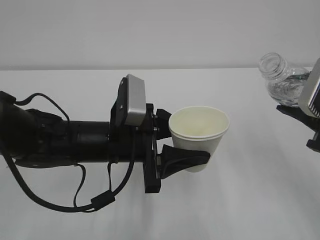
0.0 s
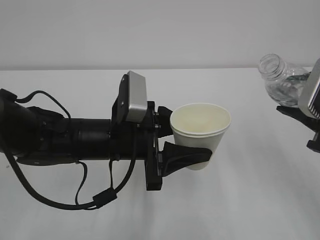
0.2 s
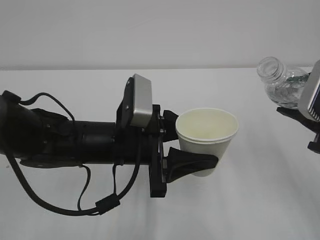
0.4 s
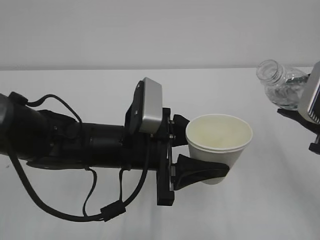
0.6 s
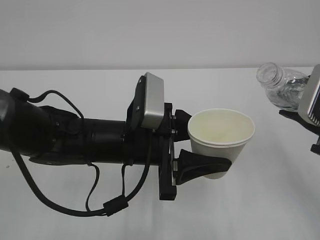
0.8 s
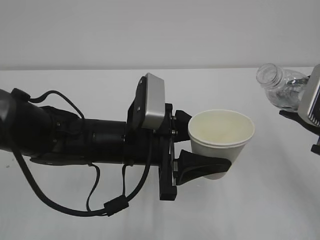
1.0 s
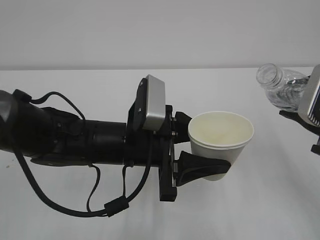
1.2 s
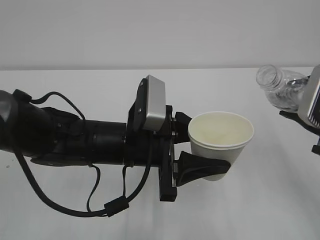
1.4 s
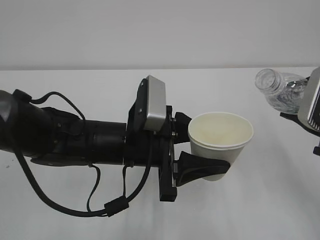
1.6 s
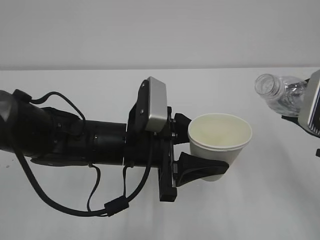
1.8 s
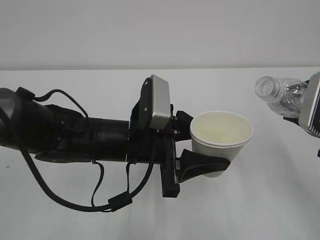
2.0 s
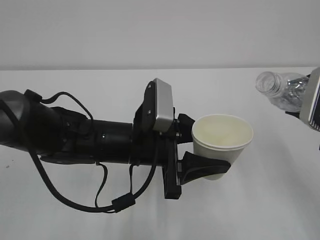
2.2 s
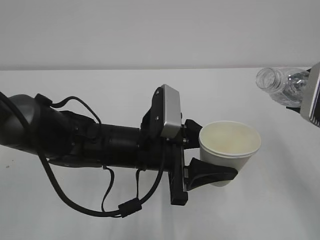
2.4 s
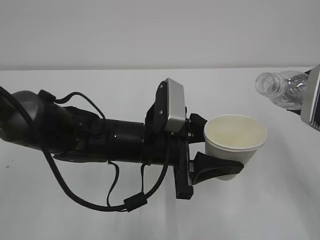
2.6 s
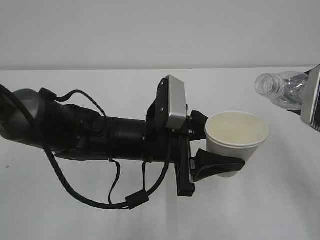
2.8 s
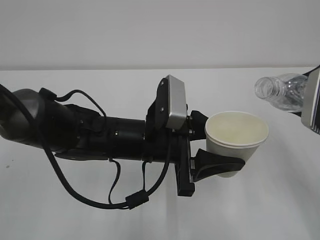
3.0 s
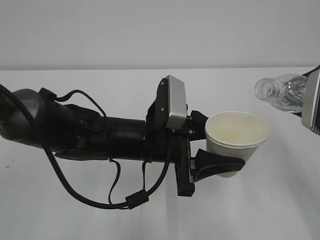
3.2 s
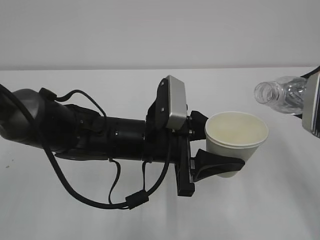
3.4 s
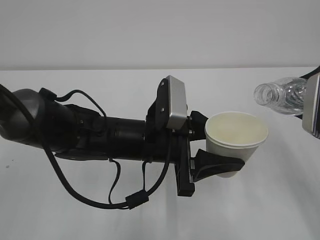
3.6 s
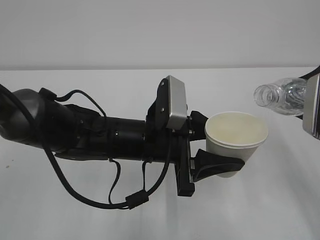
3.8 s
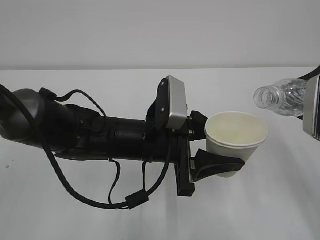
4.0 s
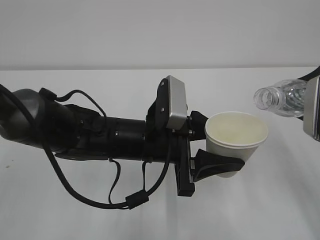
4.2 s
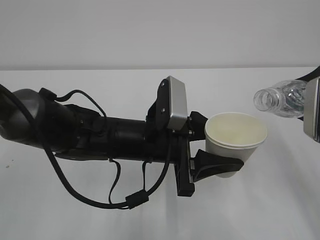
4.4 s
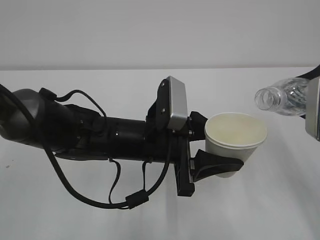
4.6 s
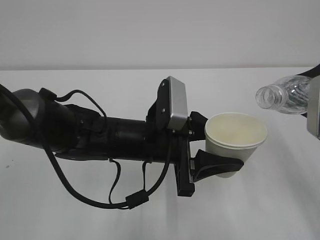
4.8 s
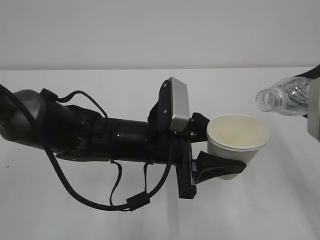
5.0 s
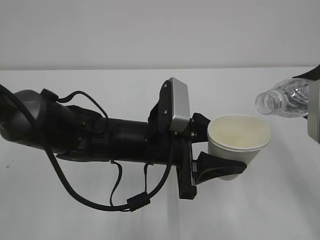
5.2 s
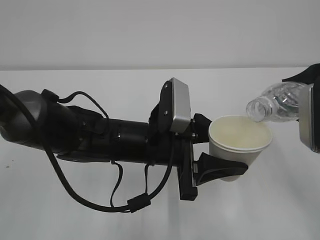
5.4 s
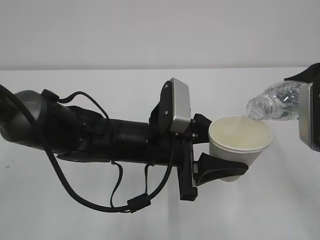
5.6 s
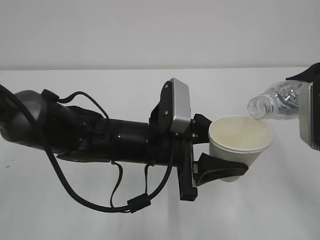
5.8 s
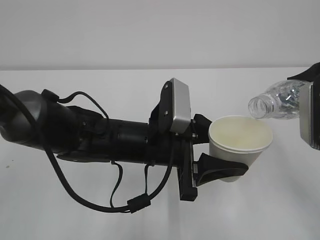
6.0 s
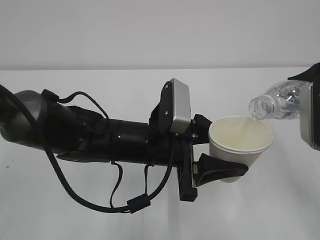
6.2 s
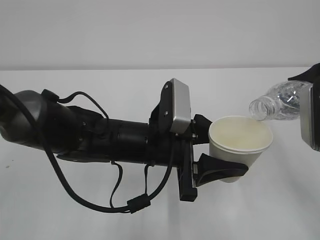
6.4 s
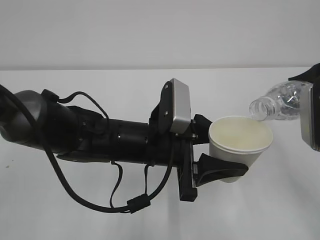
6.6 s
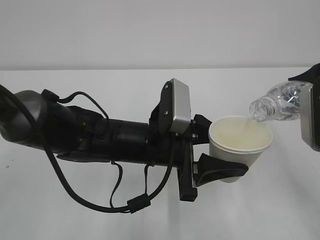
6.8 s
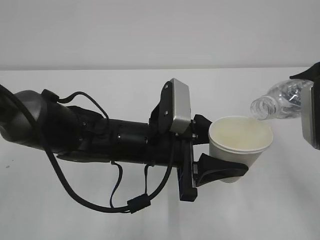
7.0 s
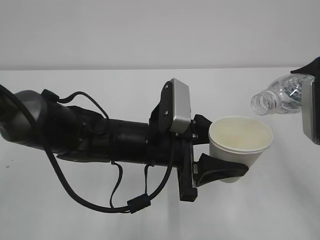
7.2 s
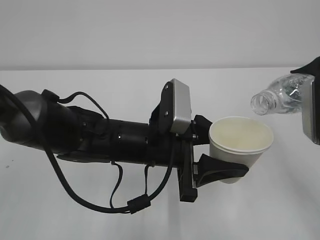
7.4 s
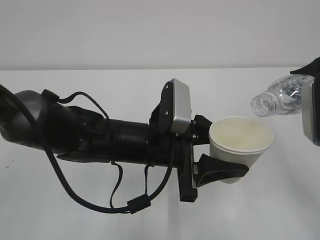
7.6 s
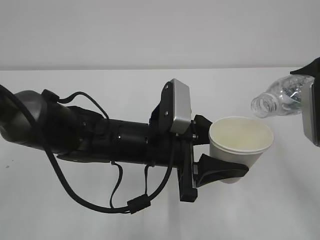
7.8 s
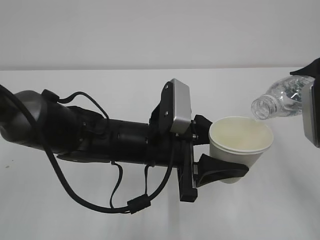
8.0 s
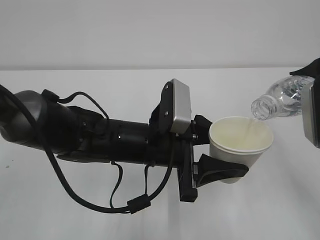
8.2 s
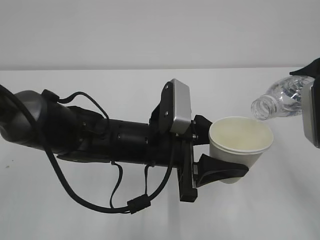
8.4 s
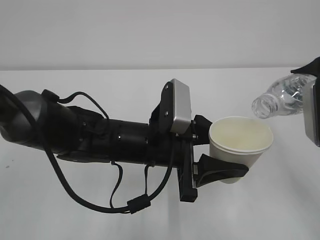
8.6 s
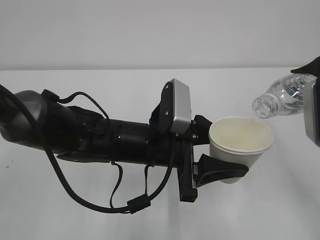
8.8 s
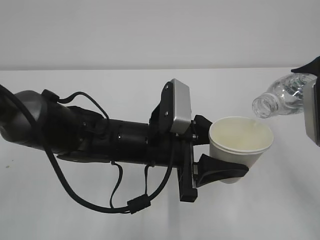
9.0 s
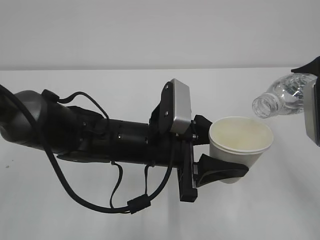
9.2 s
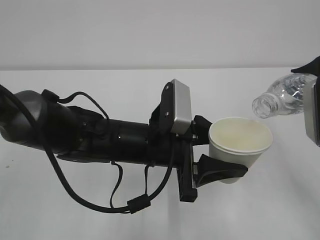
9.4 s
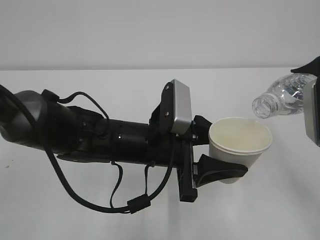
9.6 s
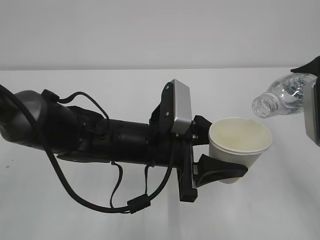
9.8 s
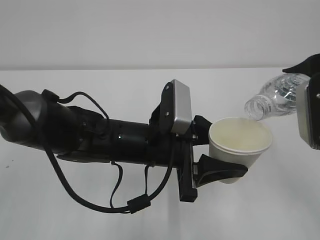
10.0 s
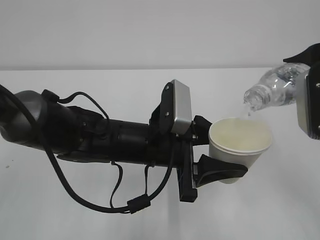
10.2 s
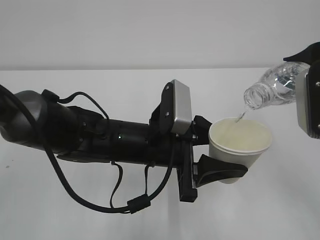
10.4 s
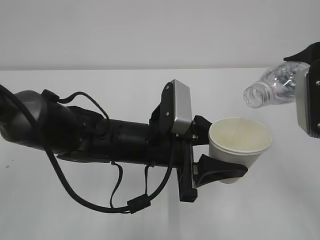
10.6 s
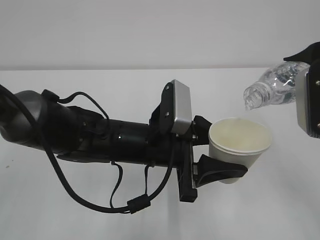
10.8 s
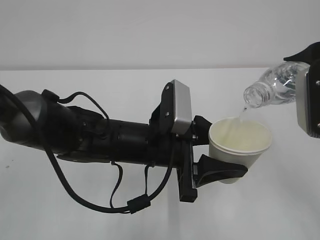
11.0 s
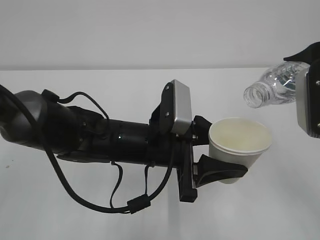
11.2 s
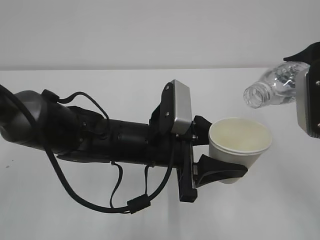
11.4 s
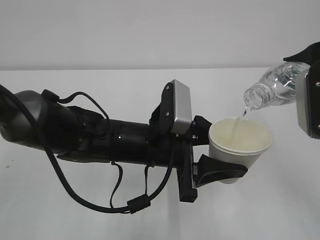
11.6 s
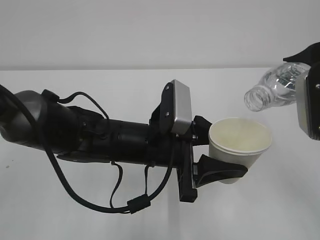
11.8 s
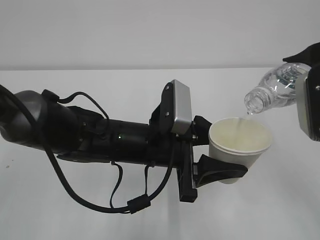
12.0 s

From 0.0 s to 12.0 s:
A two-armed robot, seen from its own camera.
From 0.0 s to 3.0 s: The grippers stay close to where they were, moving slightly.
From 3.0 s to 6.0 s: The grippers make only small movements.
From 6.0 s to 7.6 s: Neither gripper changes place.
From 7.6 s to 9.0 s: Both grippers stay about where they are.
From 9.0 s to 10.4 s: The grippers move only a little.
From 10.4 s to 12.0 s: Both grippers stay about where they are.

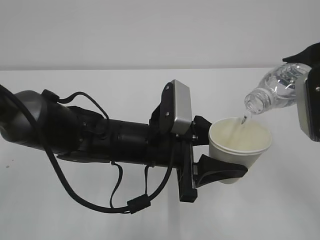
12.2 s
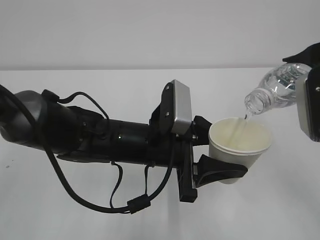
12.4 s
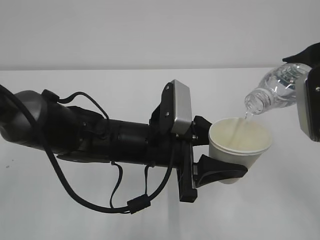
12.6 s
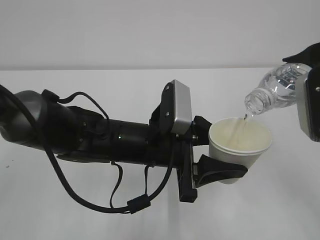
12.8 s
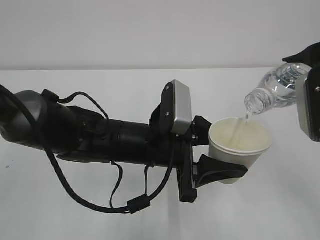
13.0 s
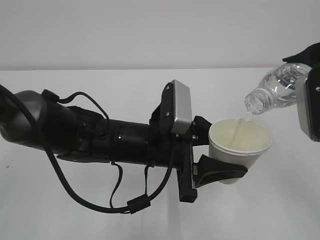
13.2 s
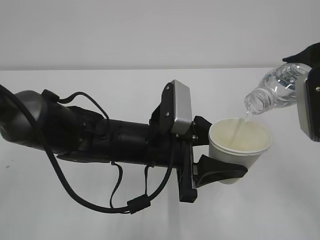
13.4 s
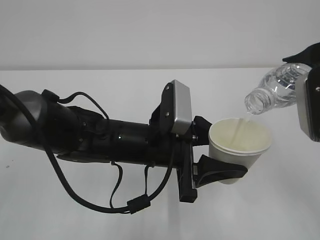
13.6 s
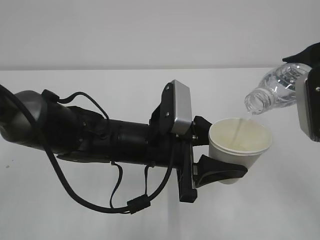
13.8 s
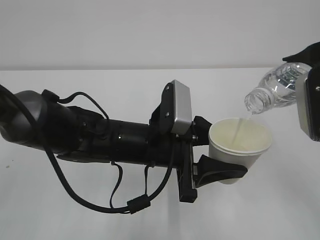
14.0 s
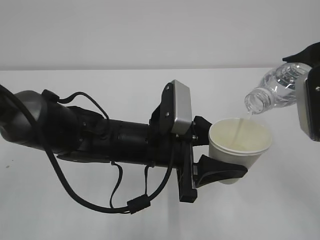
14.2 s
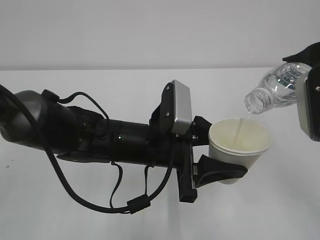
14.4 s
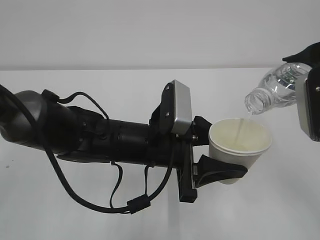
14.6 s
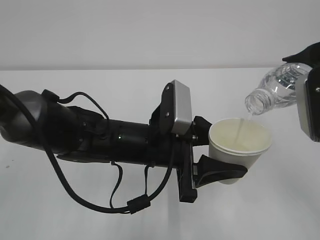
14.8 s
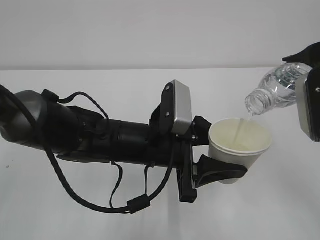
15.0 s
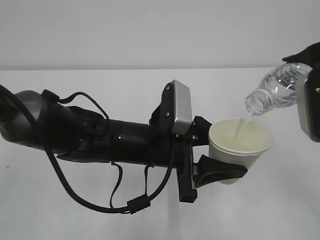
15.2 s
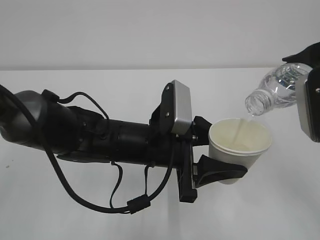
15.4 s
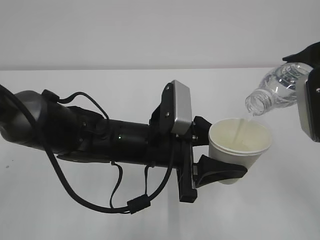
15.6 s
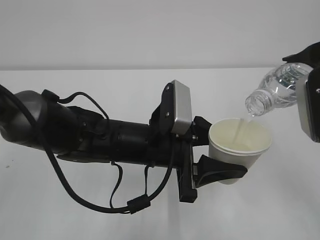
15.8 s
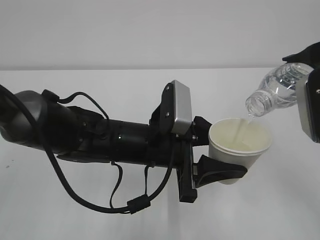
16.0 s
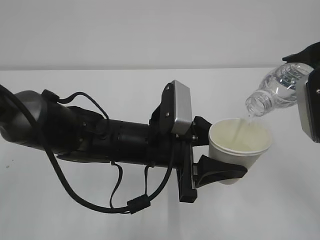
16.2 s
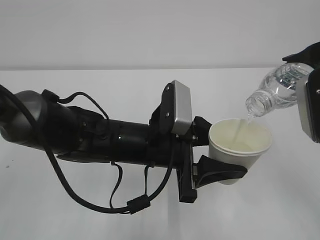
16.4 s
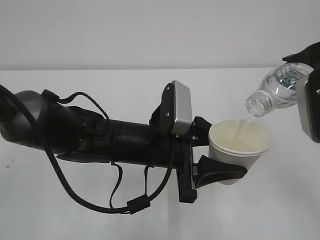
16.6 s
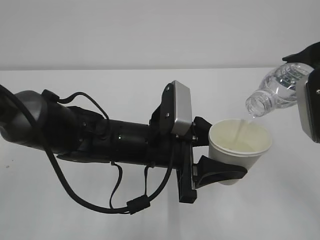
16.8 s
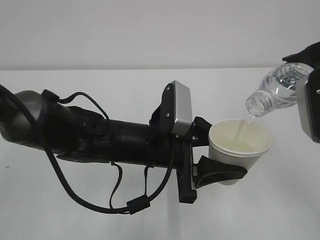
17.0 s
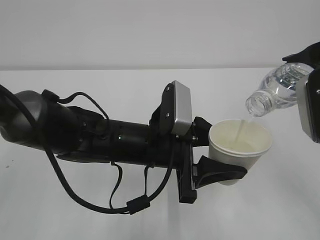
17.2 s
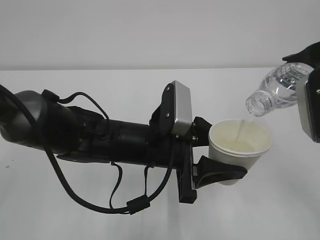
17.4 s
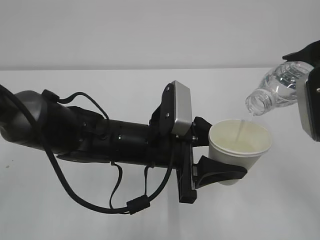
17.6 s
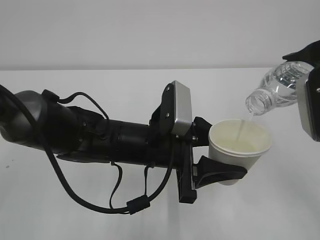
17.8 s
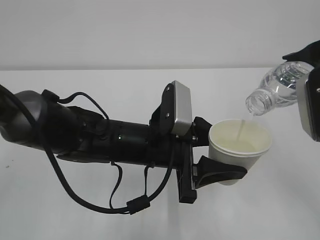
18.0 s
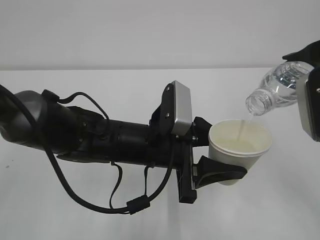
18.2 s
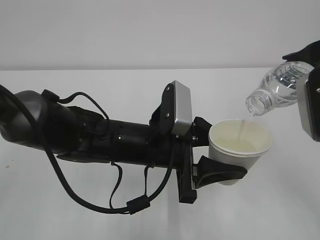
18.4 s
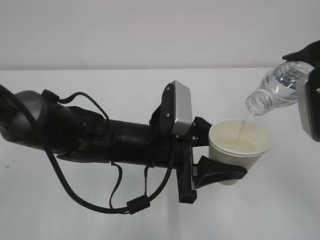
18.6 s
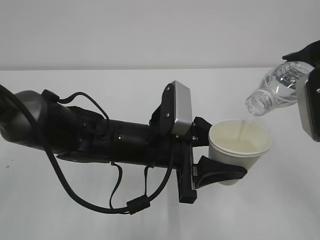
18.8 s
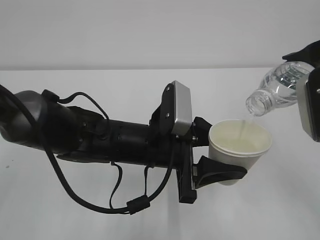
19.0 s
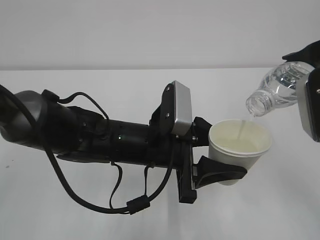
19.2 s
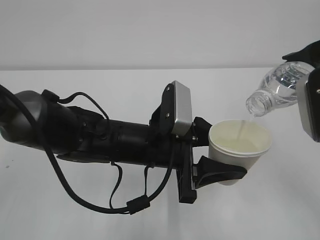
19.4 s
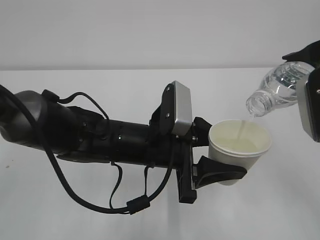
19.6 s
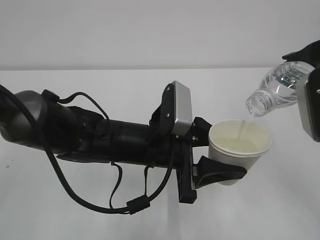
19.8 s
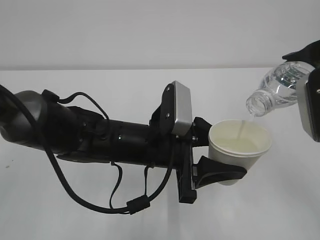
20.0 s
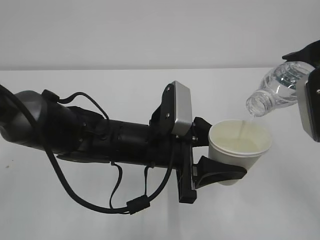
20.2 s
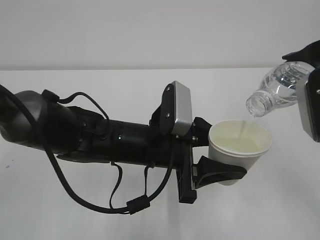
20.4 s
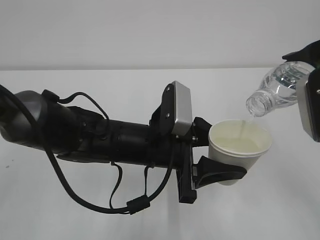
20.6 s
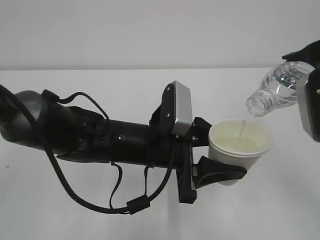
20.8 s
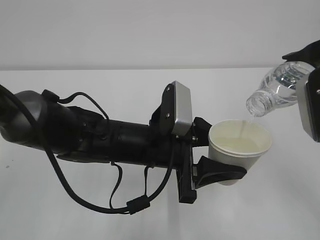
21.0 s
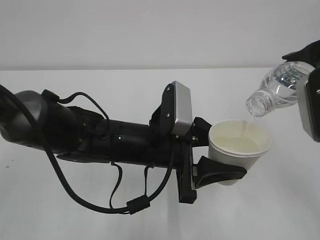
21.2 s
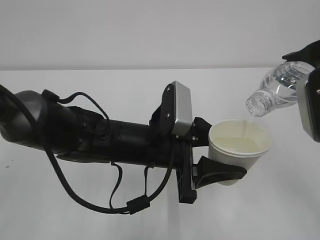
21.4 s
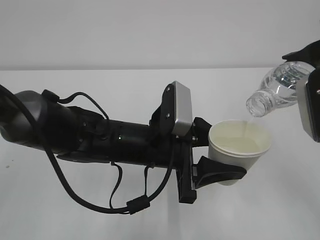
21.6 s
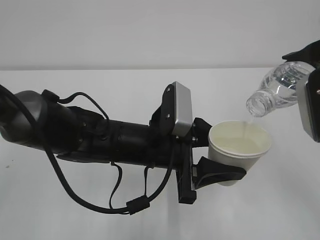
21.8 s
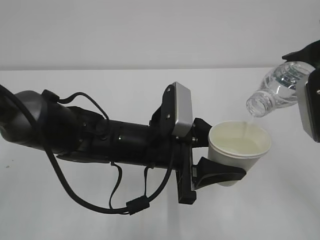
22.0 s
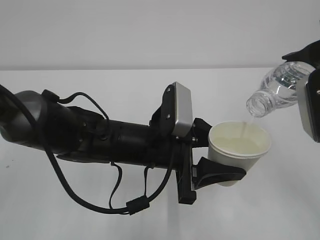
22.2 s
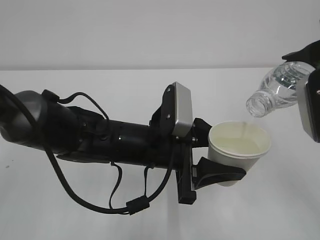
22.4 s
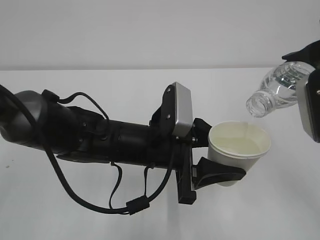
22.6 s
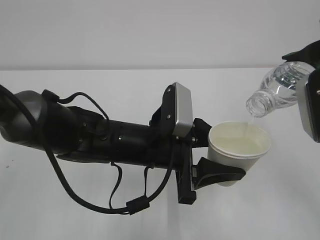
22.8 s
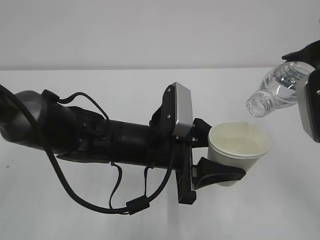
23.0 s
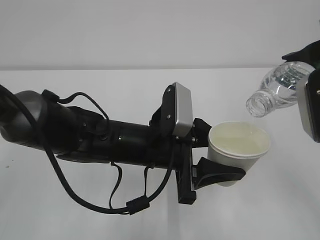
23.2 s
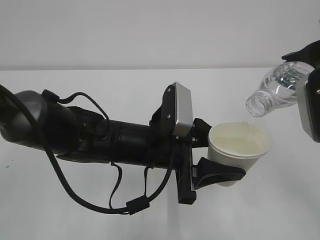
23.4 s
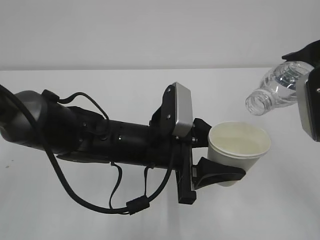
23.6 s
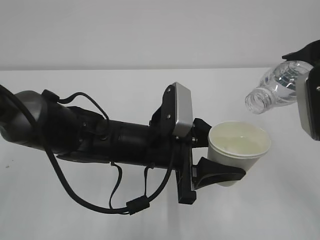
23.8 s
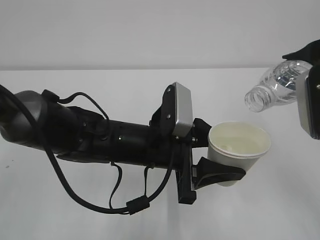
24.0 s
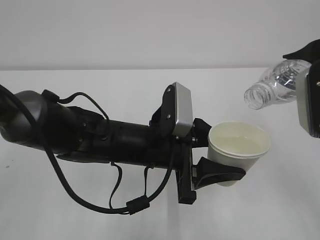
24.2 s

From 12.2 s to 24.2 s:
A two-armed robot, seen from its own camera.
From 12.2 s to 22.6 s: Neither gripper changes place.
From 22.6 s to 24.2 s: The grippers make only small movements.
